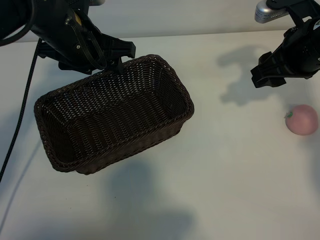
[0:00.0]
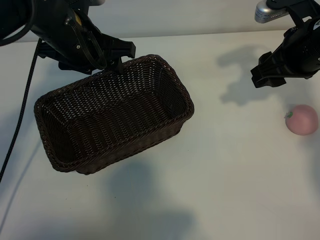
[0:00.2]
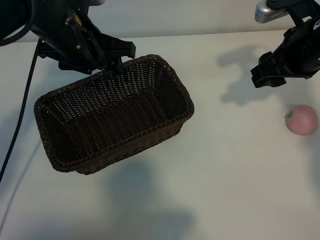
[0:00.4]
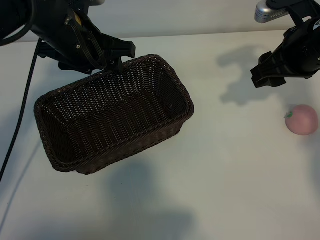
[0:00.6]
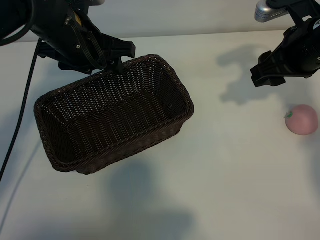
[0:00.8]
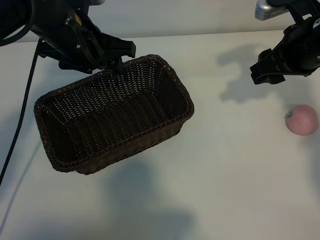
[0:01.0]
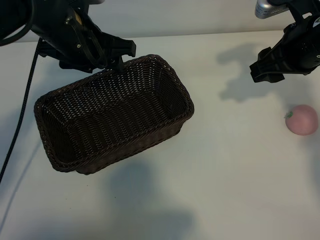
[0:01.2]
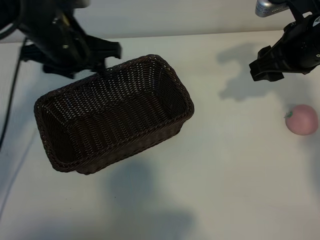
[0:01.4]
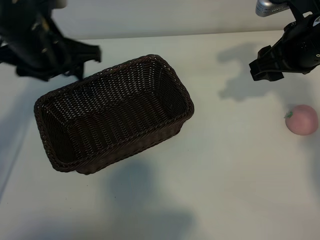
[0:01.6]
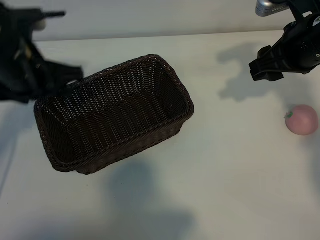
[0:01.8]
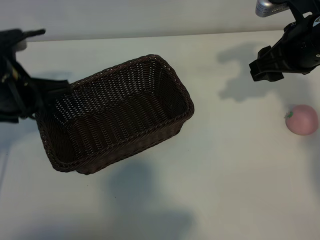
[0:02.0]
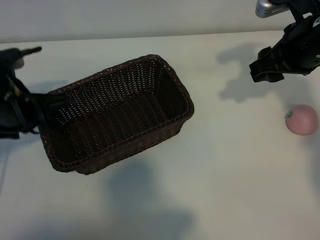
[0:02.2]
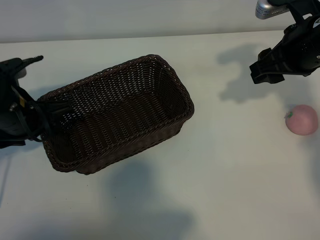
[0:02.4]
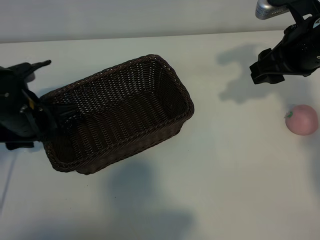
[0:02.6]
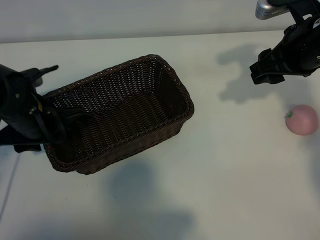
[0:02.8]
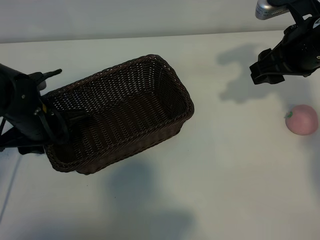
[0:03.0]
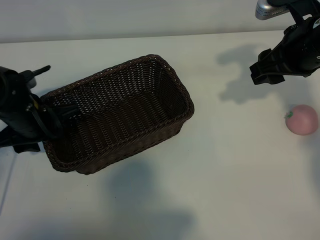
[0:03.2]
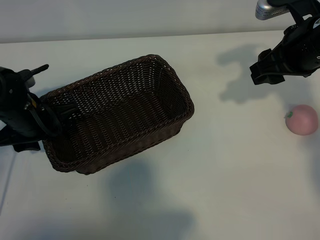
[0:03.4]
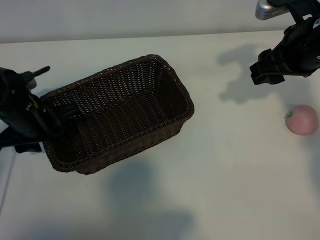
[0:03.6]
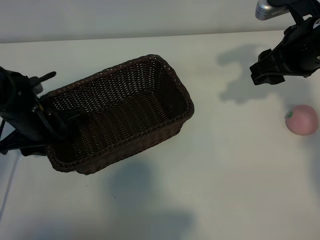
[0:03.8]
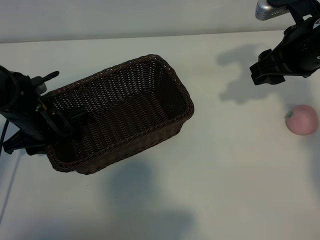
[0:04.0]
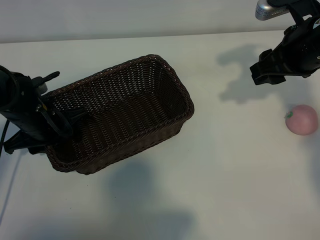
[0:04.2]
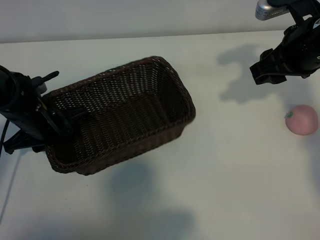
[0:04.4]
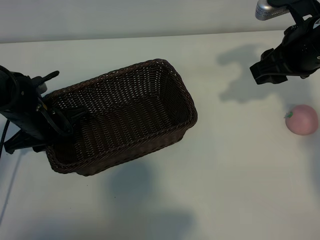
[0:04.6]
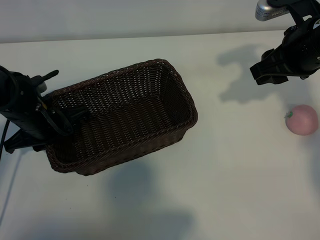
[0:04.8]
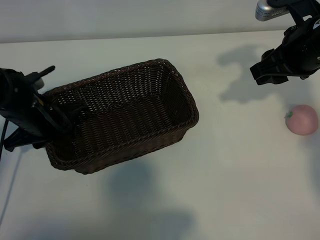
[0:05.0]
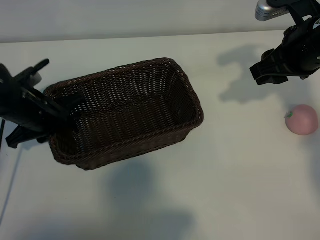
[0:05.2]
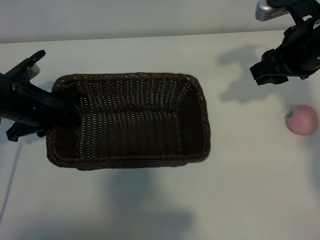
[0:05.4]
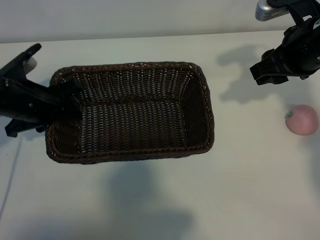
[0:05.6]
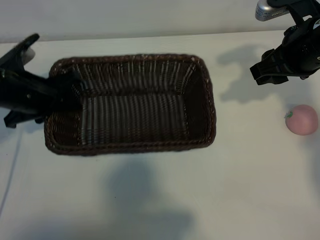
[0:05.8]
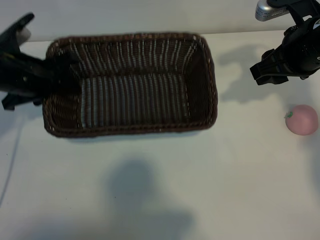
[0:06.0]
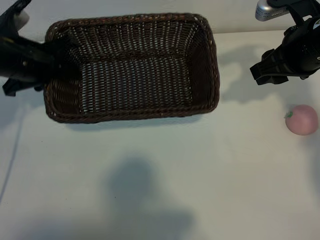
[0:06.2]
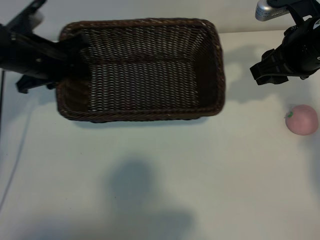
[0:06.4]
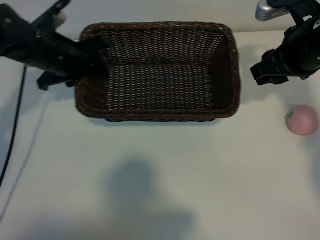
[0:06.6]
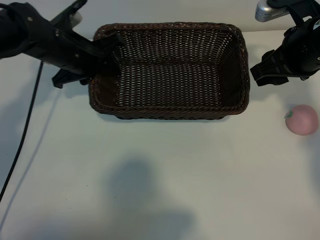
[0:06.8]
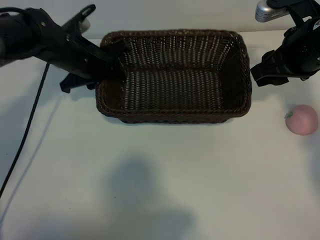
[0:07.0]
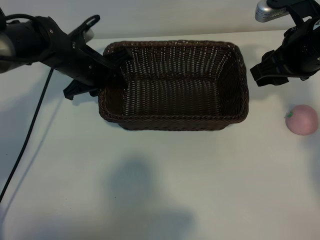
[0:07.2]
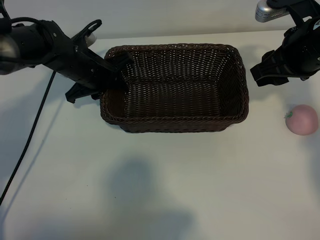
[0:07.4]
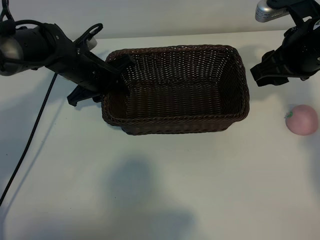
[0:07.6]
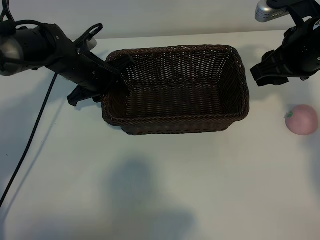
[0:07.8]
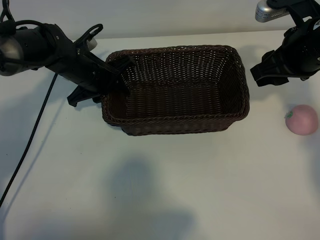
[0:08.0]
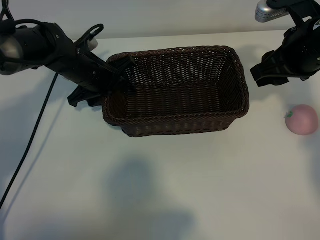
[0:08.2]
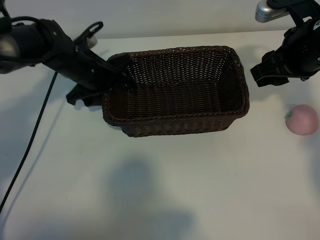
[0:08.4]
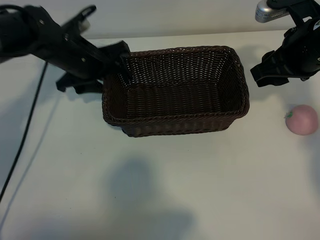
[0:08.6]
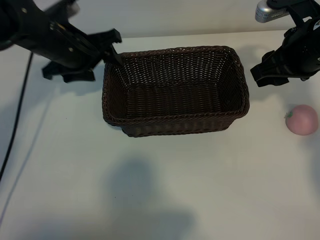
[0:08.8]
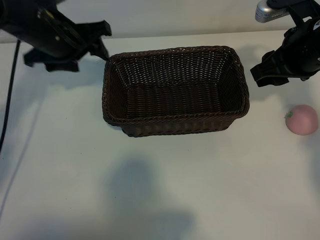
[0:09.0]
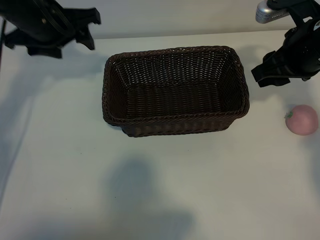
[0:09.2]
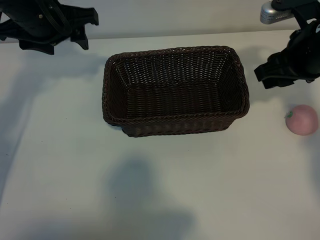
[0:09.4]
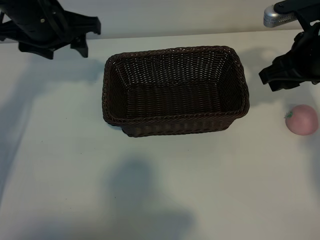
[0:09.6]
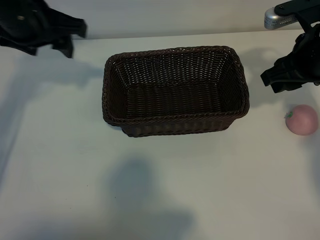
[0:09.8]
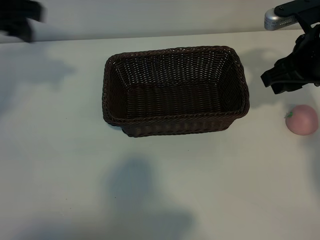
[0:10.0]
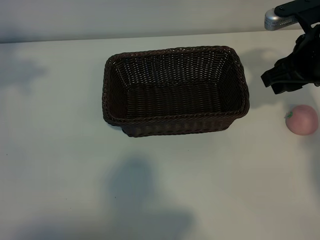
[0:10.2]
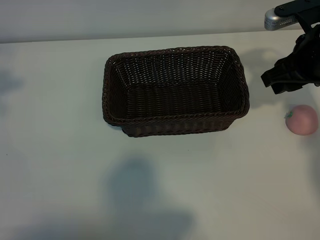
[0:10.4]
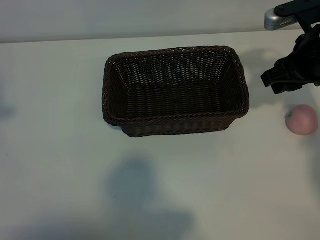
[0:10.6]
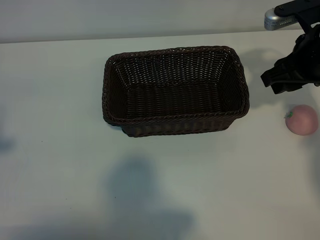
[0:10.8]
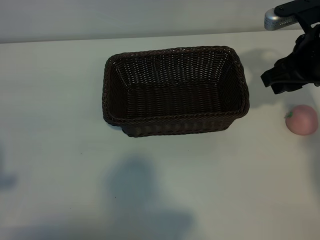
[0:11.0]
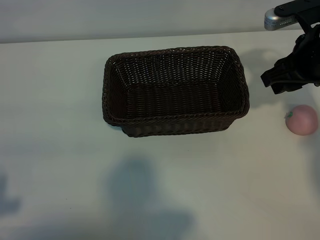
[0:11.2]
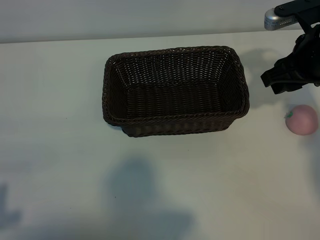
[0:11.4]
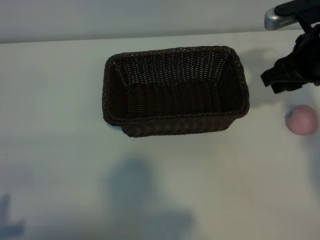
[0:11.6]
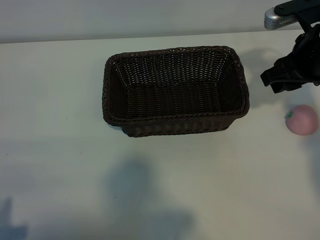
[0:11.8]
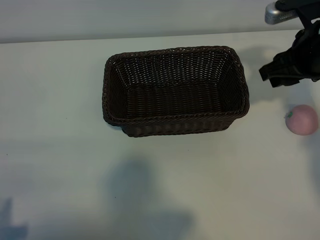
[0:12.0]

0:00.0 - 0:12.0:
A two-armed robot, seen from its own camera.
Task of the whole recording: pick up the peach and put it into the basket.
Step, 0:01.2 - 0:04.6: Grasp the basket with left gripper.
Step, 0:04.8 - 0:08.6: Place the basket in the center of view with left gripper.

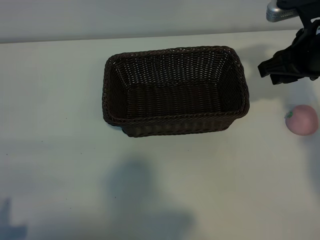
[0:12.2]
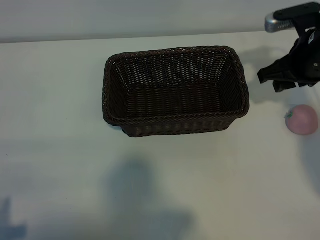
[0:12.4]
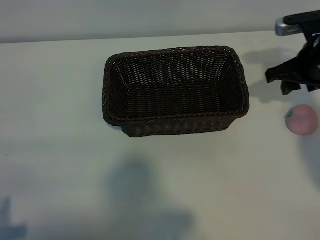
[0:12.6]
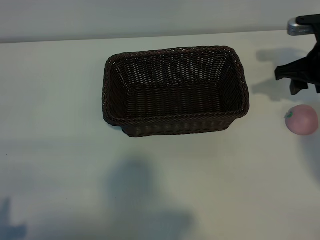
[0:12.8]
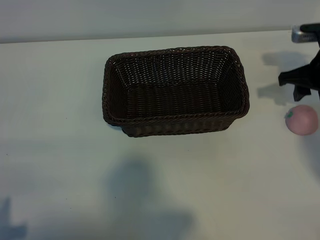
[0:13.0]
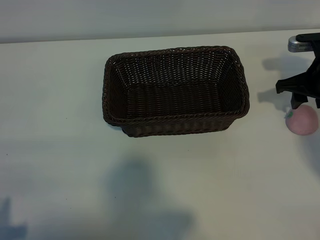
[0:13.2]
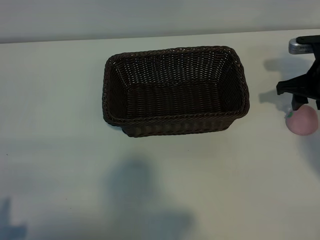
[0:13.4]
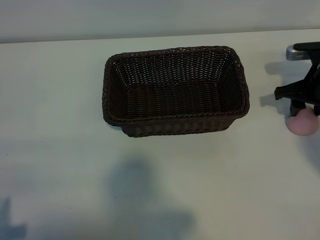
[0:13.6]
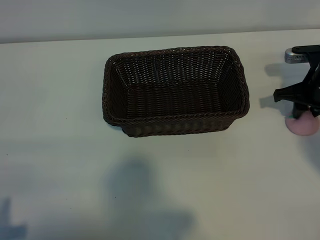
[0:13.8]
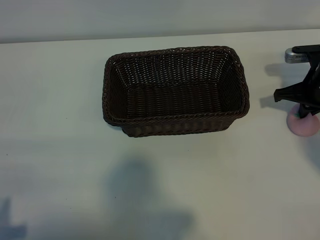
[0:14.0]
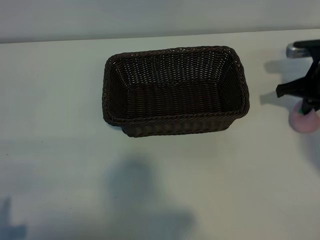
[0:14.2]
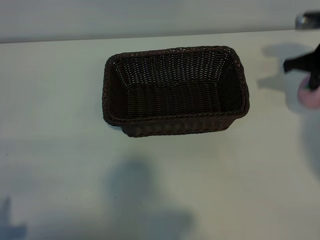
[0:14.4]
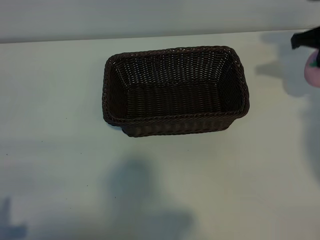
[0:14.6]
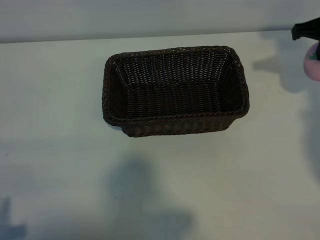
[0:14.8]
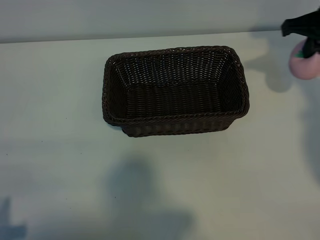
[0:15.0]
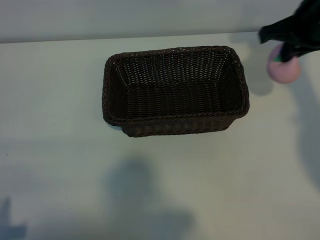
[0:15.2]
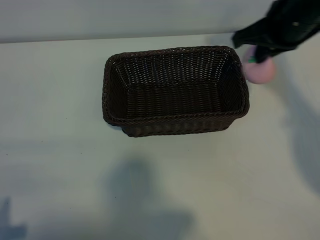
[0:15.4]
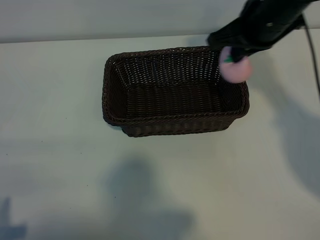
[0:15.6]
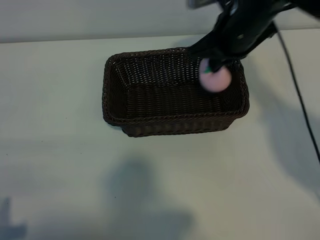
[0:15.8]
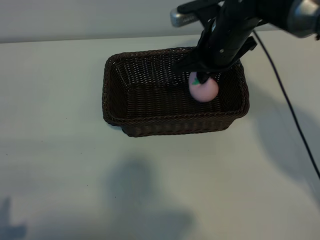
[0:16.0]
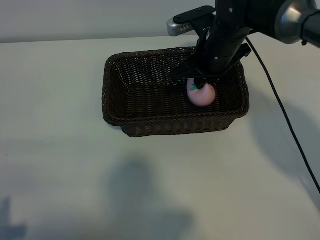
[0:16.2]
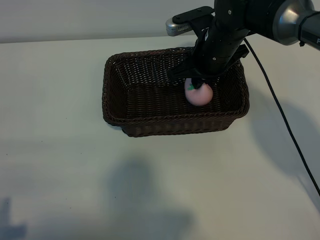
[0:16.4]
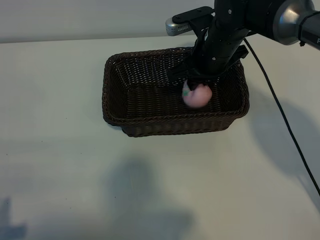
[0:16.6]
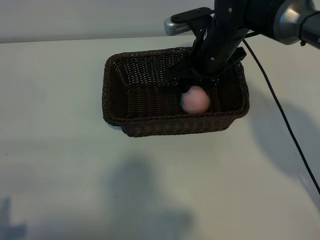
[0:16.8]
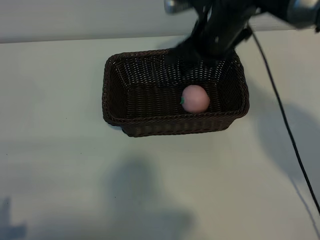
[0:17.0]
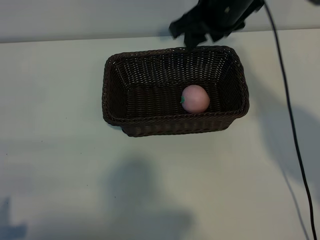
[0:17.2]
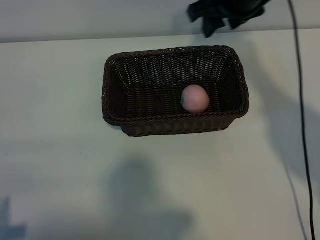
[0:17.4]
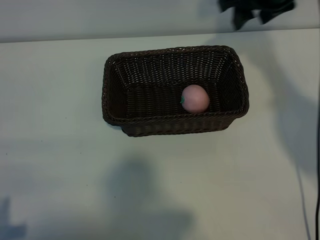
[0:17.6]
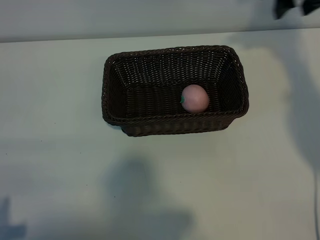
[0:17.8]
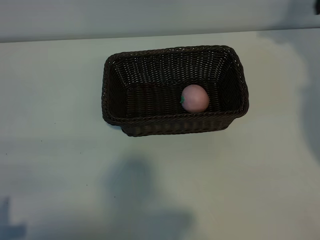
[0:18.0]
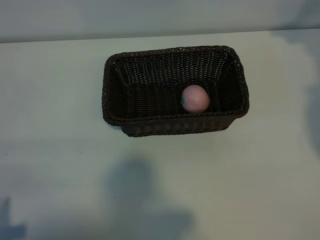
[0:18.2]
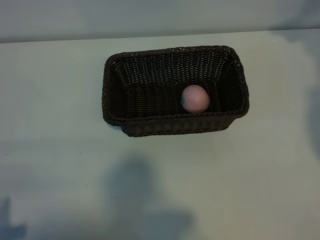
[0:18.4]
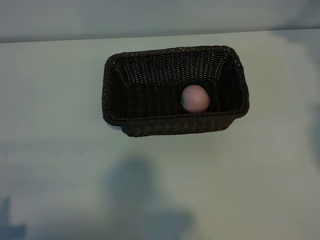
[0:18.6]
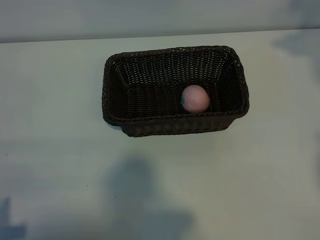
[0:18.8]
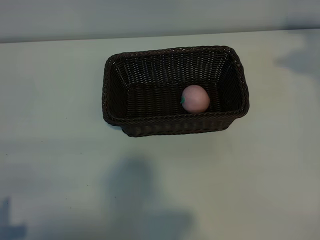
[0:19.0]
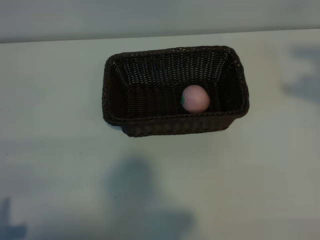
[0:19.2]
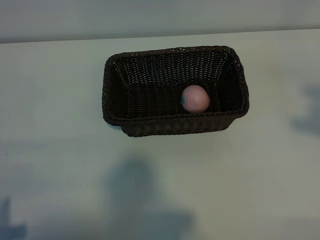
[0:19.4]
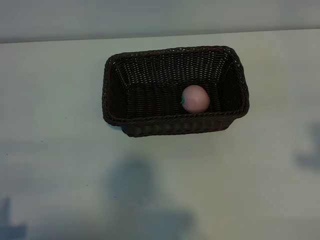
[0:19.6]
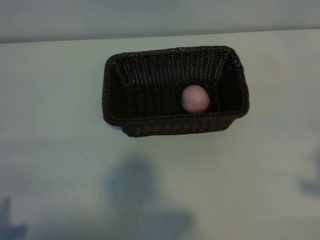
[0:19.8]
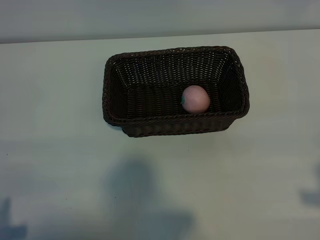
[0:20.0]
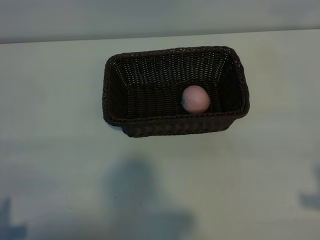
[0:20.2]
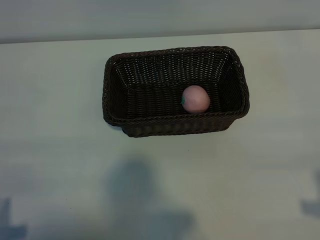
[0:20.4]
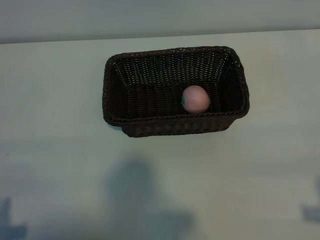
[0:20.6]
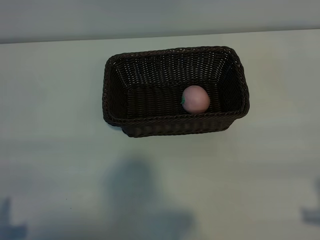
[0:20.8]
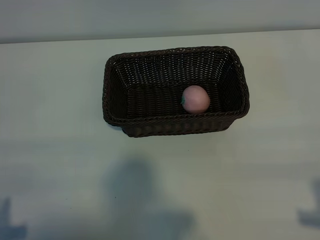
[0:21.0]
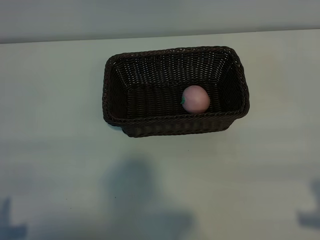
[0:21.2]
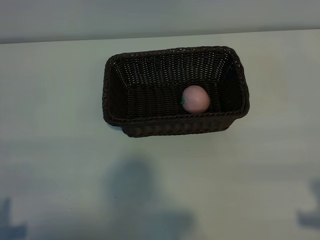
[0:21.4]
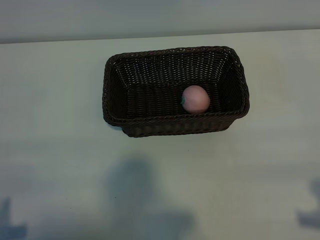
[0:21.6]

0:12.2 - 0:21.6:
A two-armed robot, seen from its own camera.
Task of the whole recording: pick up the peach and put it into the basket.
Step, 0:14.2 - 0:16.8: Place the peach in the basket with right gripper.
